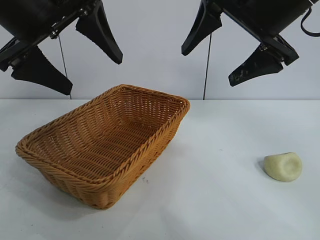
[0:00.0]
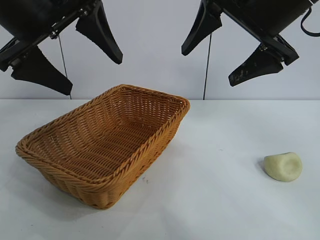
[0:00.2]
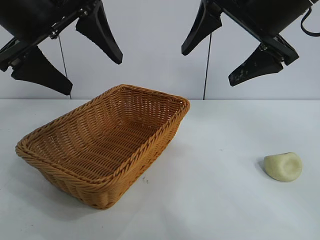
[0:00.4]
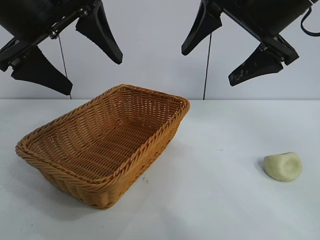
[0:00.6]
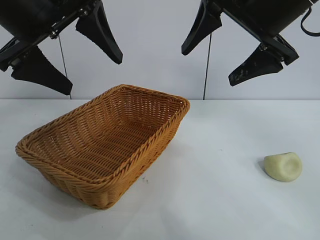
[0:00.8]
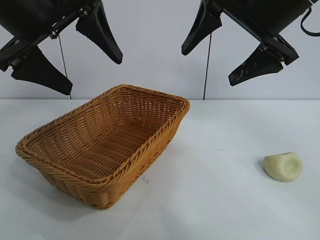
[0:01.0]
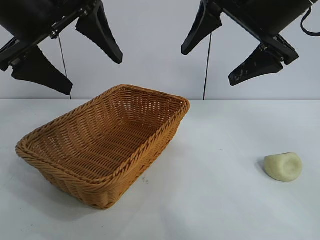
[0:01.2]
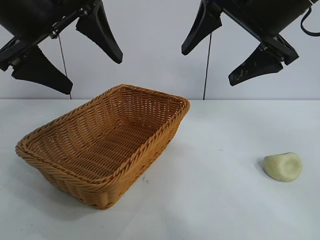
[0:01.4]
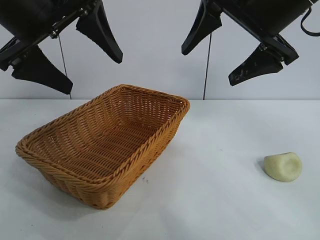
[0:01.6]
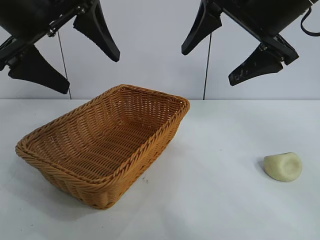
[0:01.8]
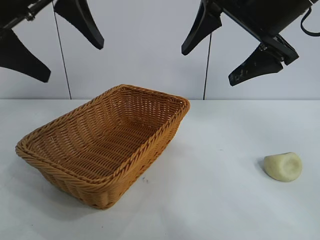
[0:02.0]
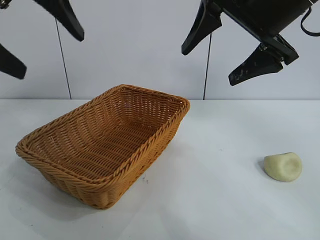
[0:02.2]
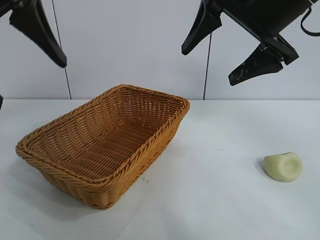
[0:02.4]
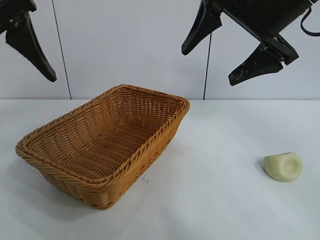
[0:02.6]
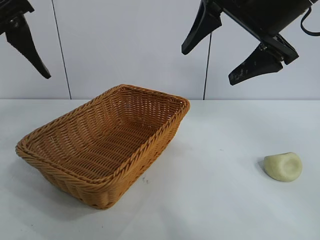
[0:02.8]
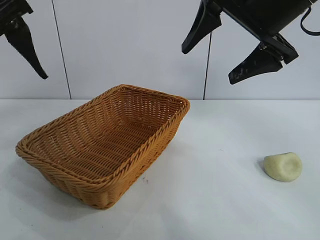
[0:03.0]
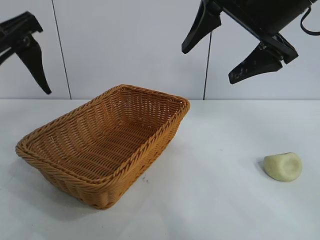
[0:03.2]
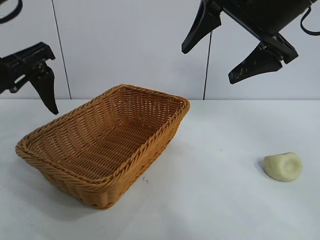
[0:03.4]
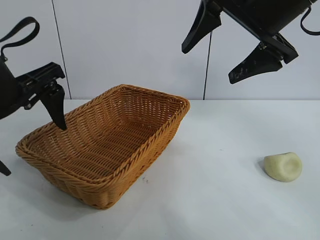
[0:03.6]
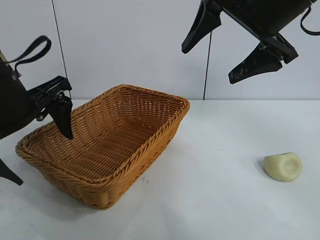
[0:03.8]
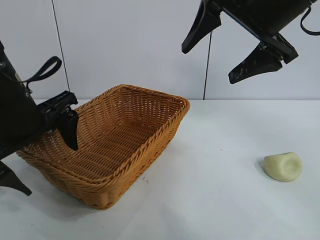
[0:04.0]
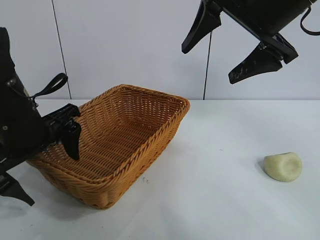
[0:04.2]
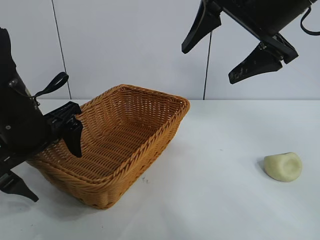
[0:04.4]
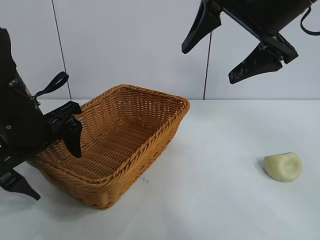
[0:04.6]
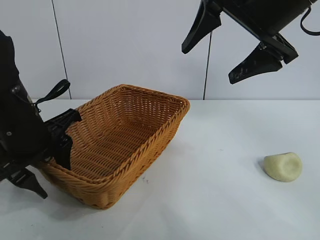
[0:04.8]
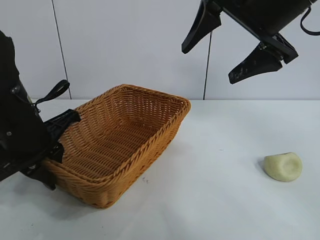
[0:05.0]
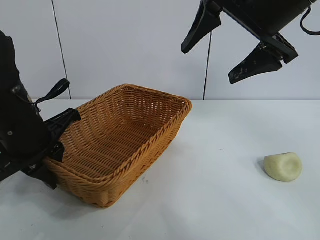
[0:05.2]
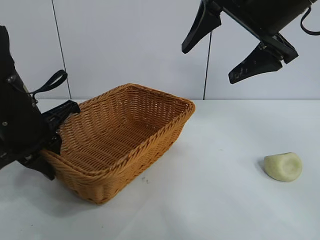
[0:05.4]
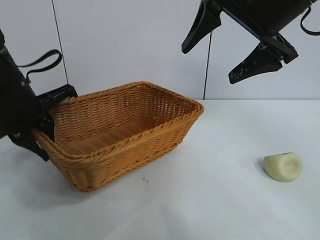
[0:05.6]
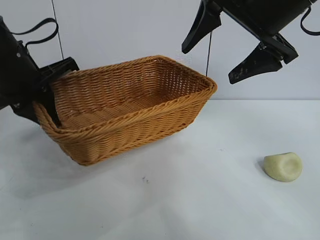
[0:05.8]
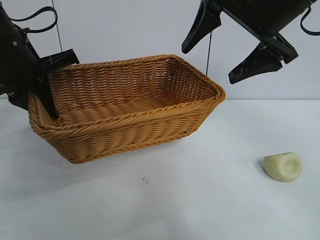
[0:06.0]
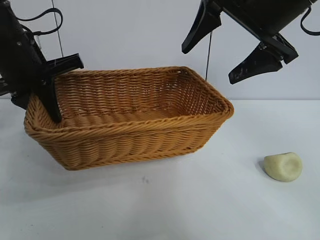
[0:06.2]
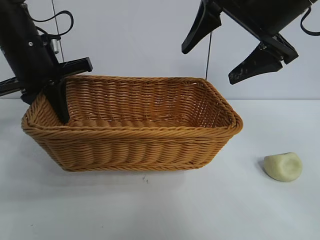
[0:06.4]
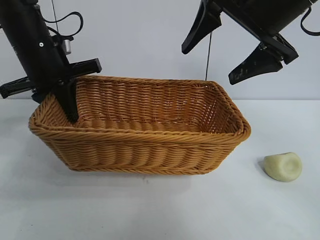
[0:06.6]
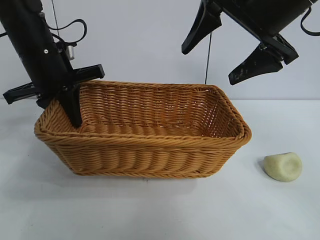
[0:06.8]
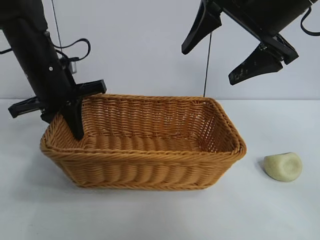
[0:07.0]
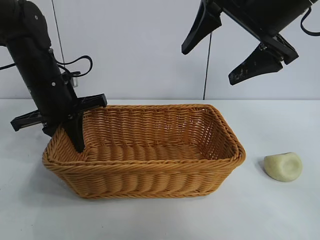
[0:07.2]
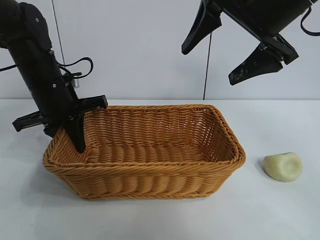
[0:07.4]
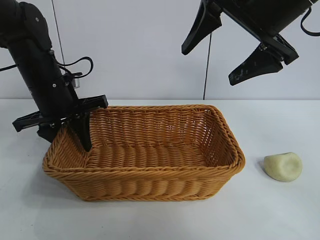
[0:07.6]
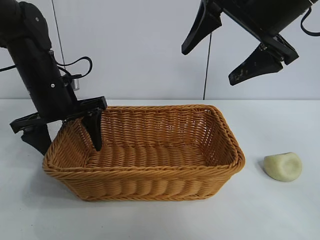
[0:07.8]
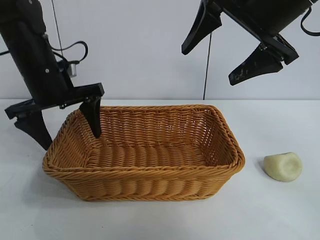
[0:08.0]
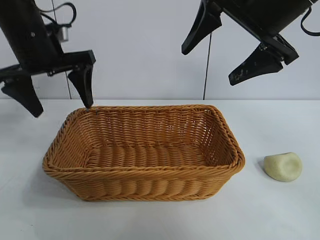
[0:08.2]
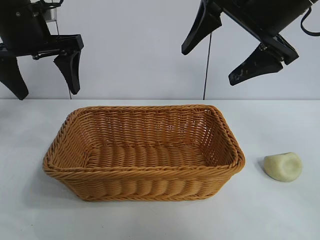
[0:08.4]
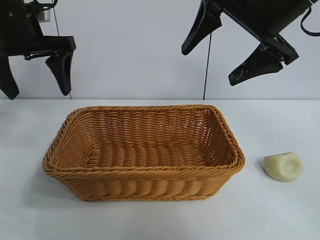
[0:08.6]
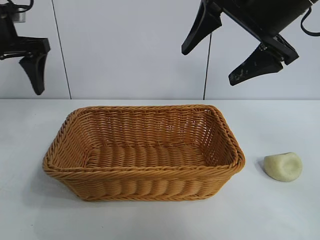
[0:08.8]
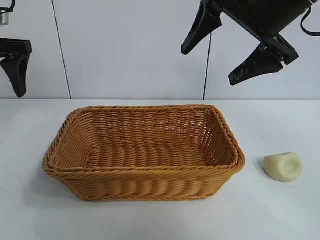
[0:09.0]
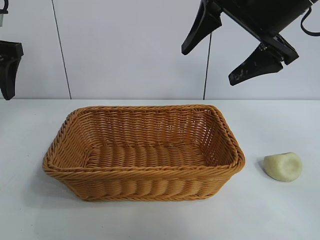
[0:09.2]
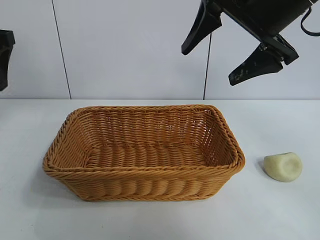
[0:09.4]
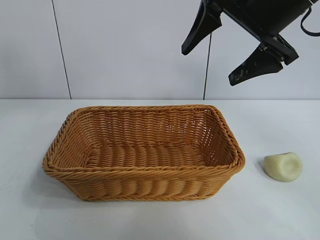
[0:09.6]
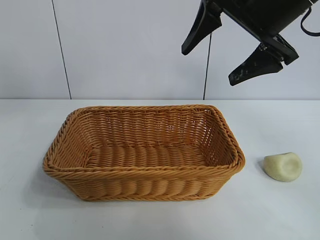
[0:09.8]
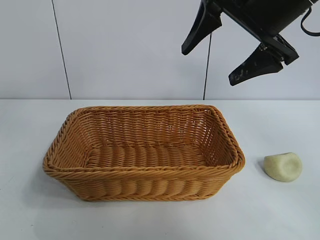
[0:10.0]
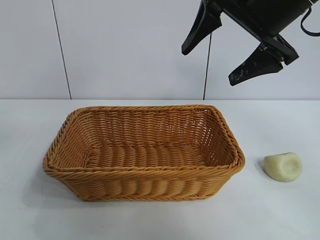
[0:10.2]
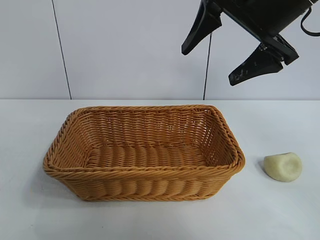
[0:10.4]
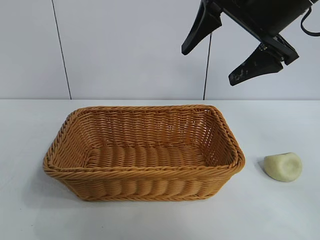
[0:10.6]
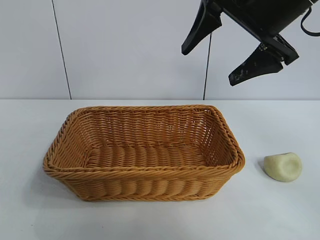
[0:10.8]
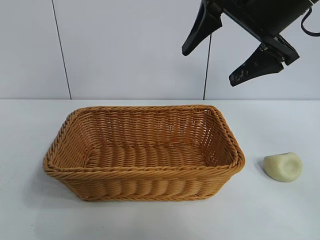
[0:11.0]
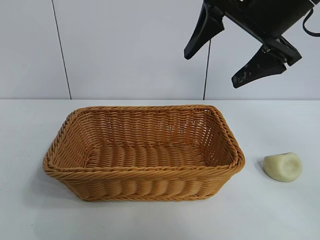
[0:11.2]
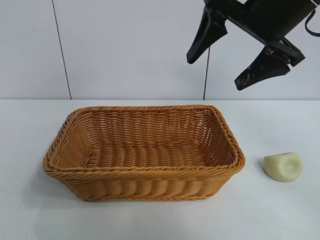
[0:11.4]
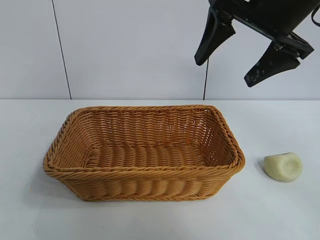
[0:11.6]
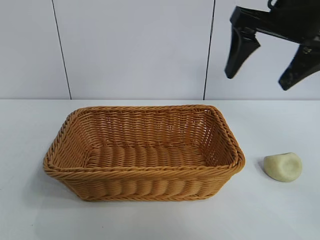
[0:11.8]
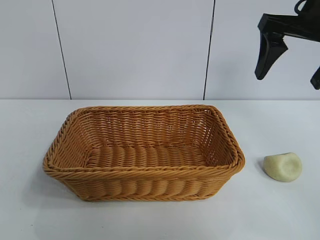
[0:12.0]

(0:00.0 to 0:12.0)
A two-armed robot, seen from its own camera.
Task of the whole recording: pick up the egg yolk pastry and put it into the basket.
Step, 0:01.8 - 0:05.0: Grasp the basket with left gripper.
Step, 0:05.2 - 0:07.8: Place the basket in the center of view with left gripper.

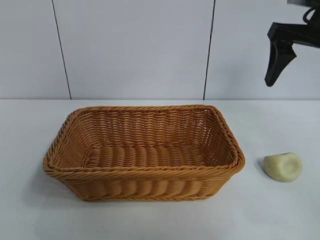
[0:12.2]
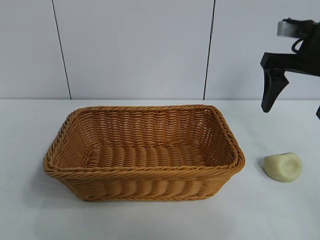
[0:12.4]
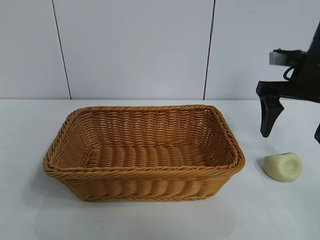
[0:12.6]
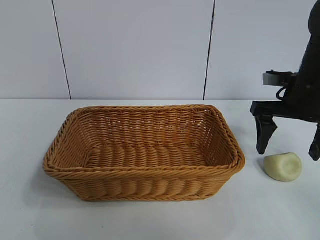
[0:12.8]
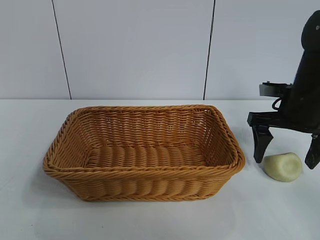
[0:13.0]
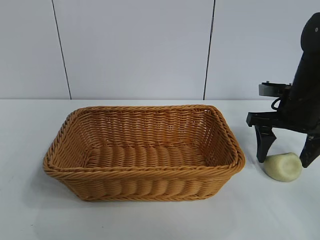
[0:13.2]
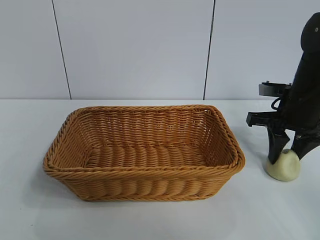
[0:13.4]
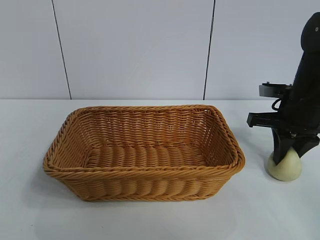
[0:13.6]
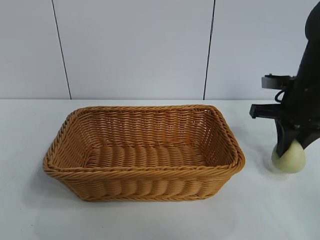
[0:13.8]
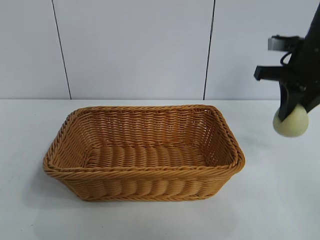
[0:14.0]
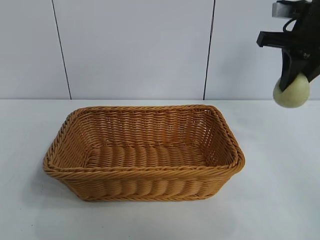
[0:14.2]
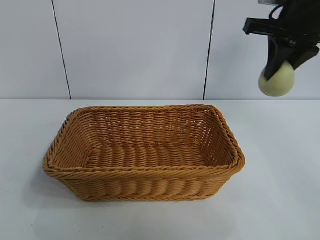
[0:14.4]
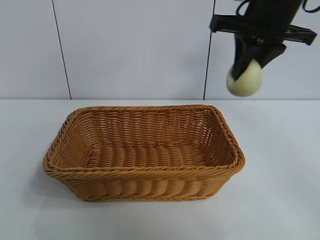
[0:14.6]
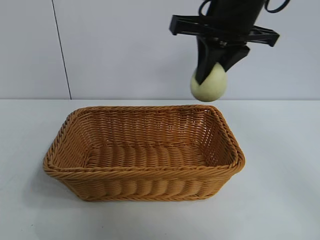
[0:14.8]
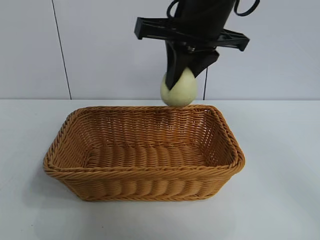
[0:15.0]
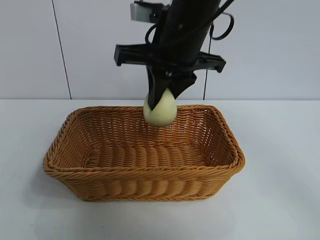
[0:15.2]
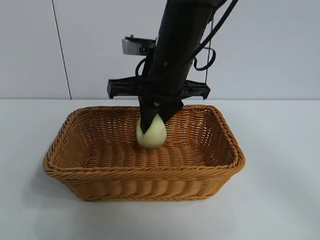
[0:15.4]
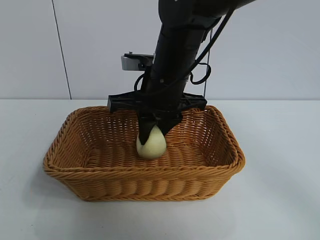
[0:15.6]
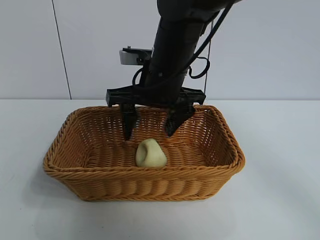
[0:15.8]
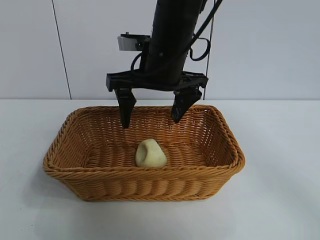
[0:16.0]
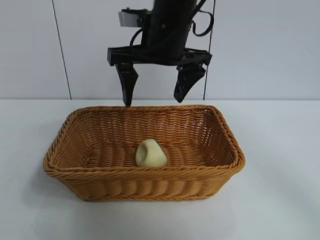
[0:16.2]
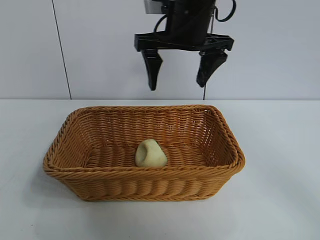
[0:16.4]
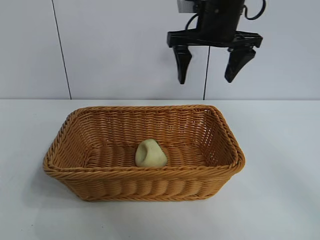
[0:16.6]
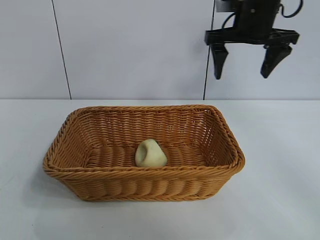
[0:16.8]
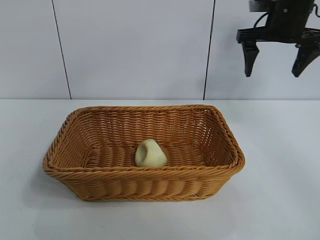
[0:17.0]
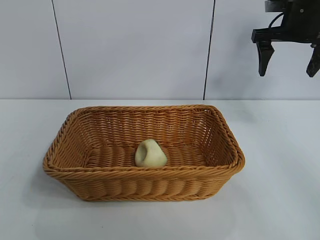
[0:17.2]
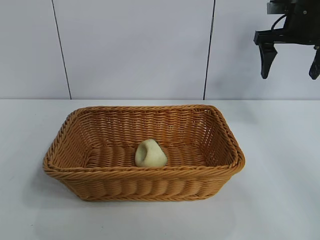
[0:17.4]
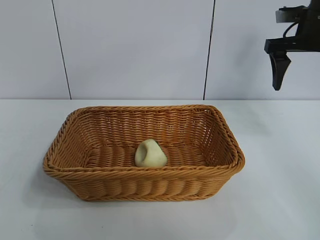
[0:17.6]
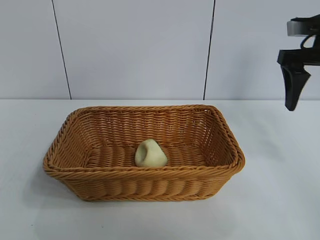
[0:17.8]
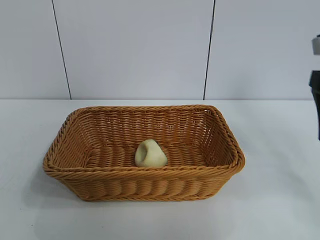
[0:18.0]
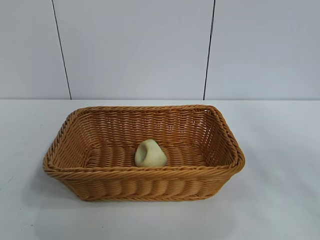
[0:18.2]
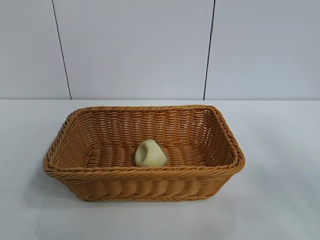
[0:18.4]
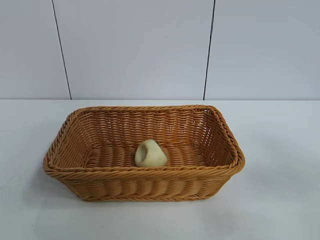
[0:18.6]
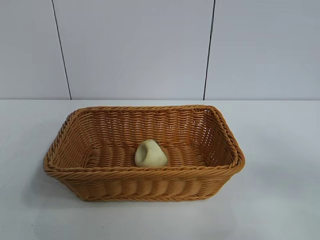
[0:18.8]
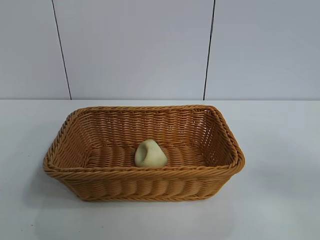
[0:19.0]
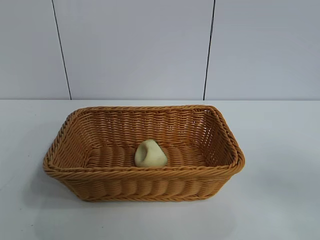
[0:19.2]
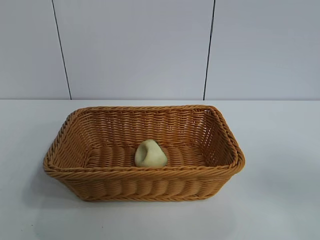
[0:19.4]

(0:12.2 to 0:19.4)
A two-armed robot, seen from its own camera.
Task of the whole recording: pick up the egg yolk pastry and put it into the basket.
Step, 0:13.8 - 0:15.6: Place the egg yolk pastry in the basket with right gripper.

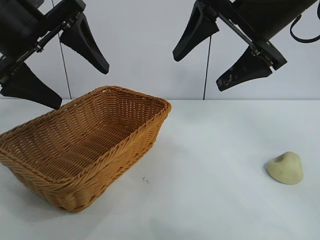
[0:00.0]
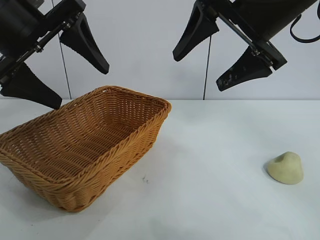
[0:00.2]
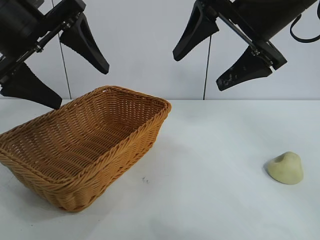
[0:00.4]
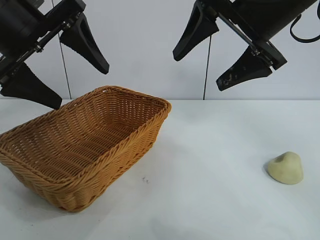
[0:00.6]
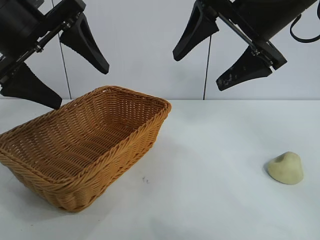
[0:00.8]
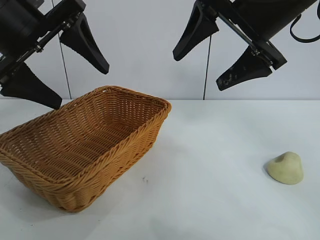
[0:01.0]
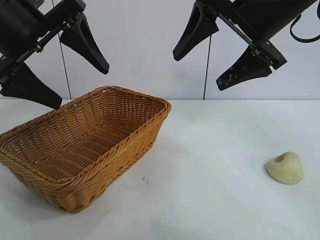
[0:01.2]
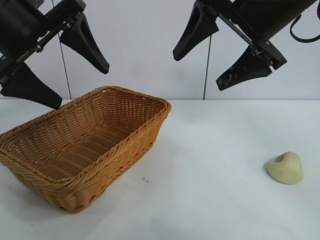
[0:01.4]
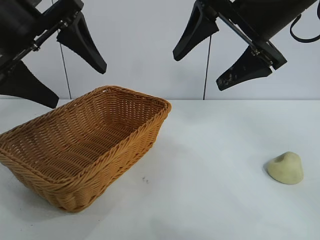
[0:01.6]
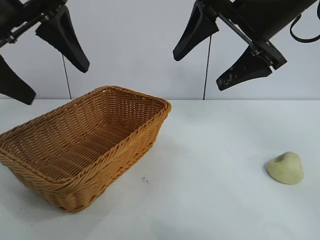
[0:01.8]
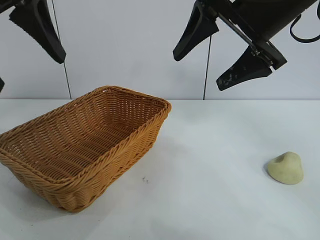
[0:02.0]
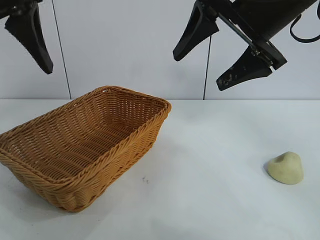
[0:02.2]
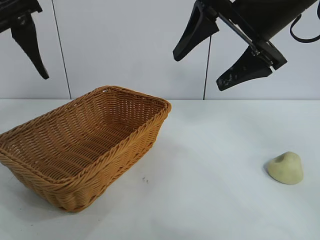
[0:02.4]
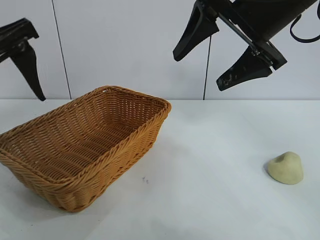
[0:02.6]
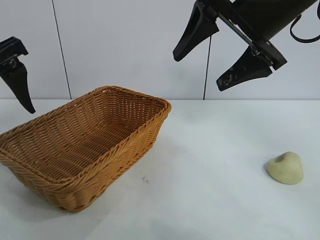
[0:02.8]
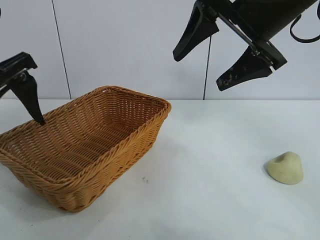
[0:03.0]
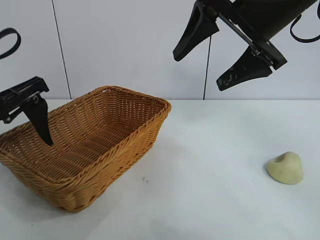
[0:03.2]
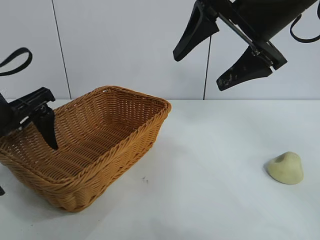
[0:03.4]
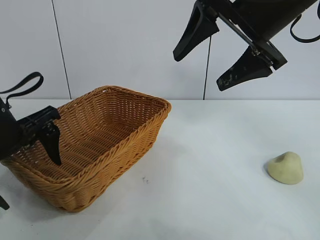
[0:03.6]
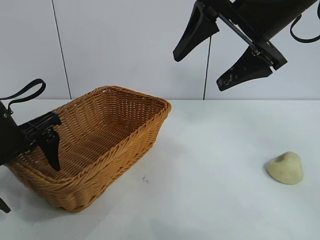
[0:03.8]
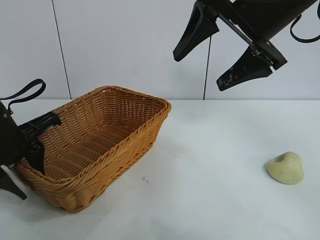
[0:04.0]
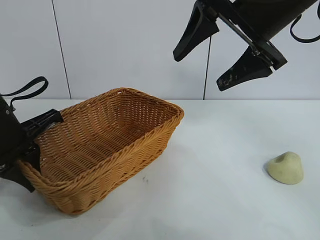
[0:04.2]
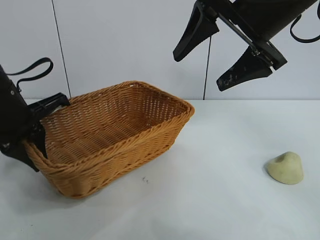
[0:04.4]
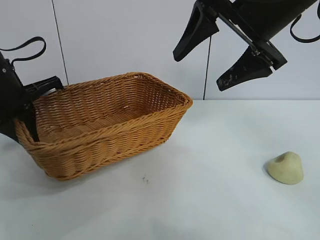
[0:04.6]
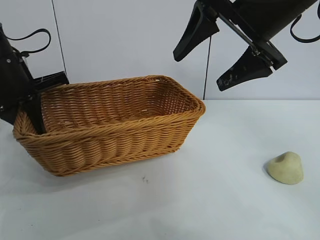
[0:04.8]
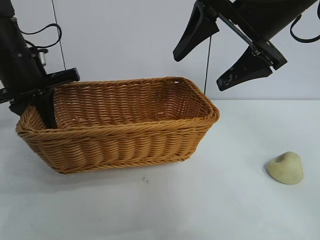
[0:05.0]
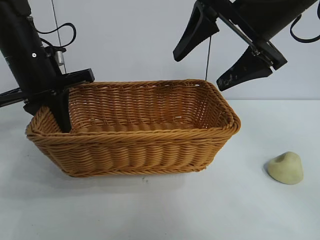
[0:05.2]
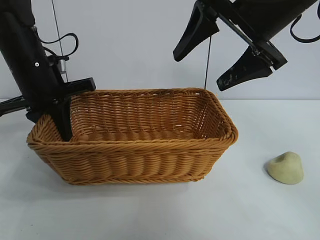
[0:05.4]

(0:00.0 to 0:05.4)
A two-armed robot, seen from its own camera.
Task of the whole recording: pick up the egg yolk pastry and put it into the basket.
Step, 0:01.6 - 0:04.0: Grasp the basket with left gripper.
